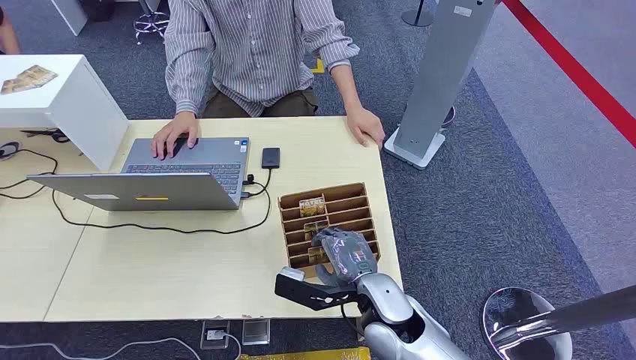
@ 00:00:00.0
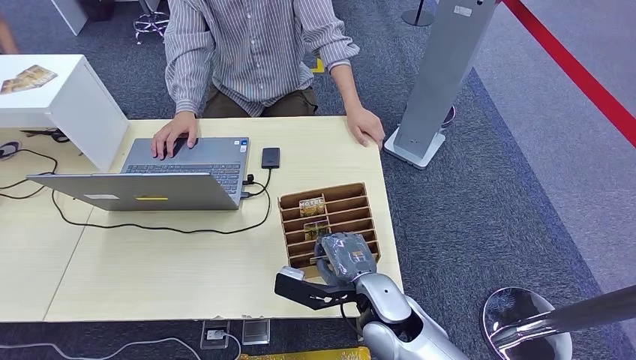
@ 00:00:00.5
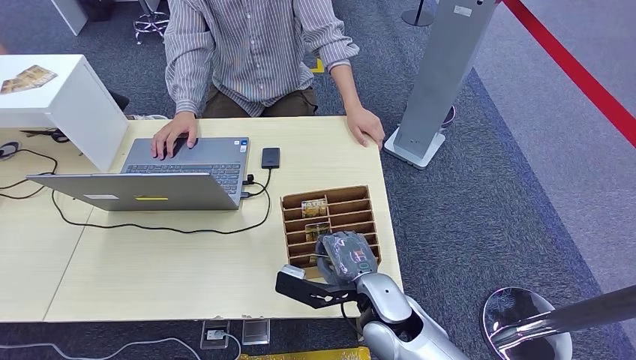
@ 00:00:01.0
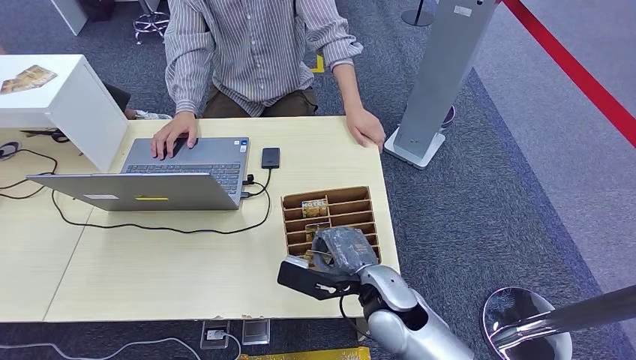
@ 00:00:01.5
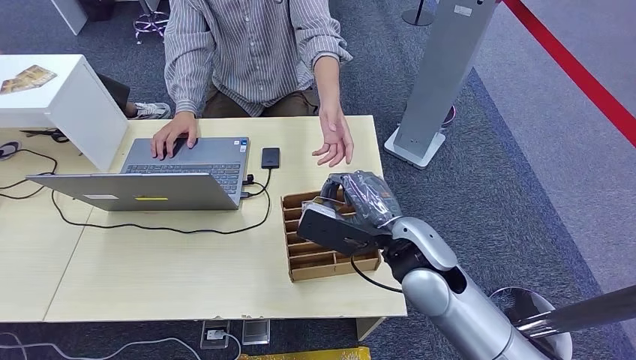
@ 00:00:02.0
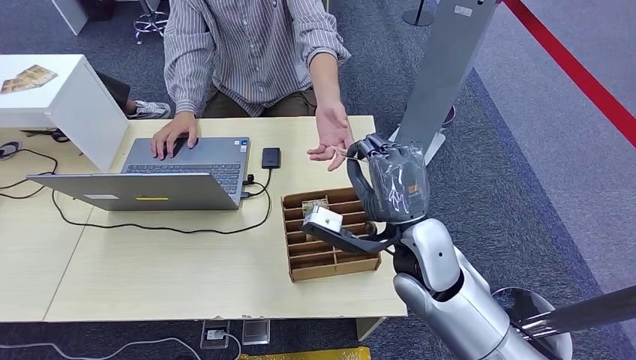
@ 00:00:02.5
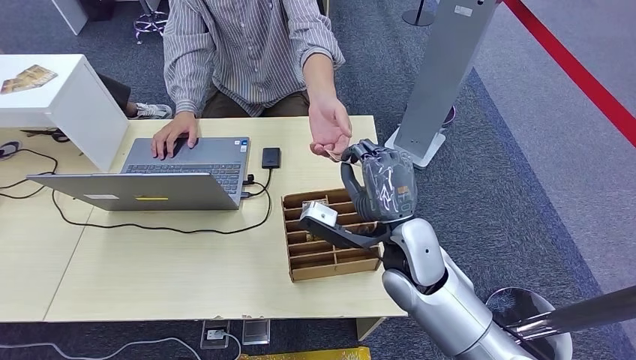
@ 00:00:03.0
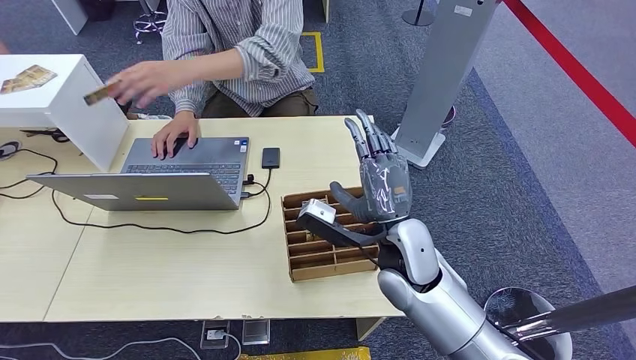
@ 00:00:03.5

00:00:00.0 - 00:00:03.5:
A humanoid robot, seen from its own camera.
Step, 00:00:00.0 - 00:00:01.5: Pick up the room card from the card holder.
Step, 00:00:03.0 - 00:00:03.5: Hand the room card to the target.
